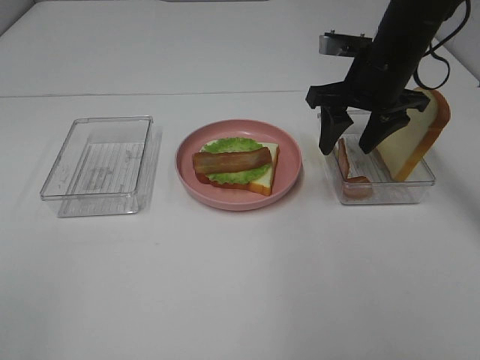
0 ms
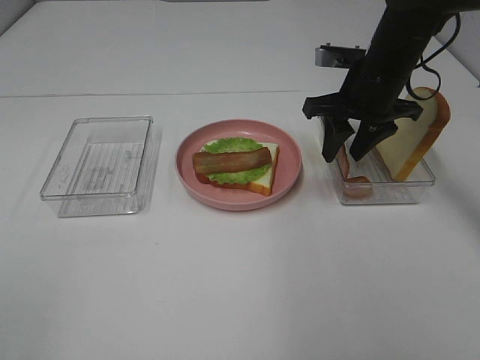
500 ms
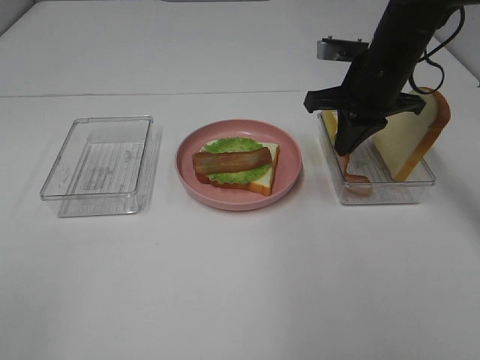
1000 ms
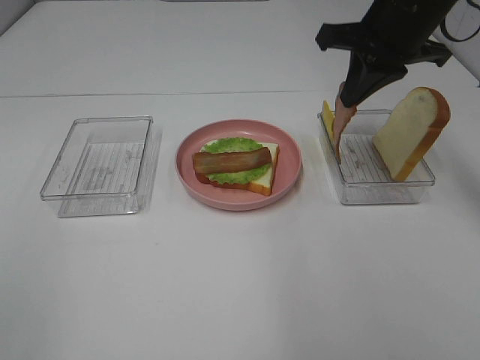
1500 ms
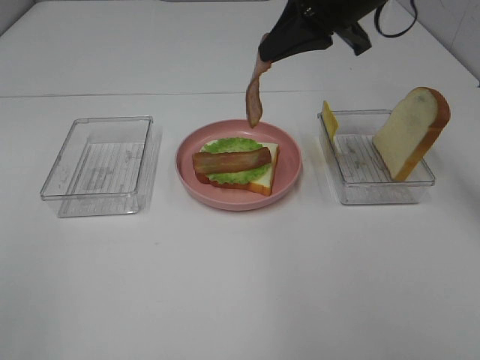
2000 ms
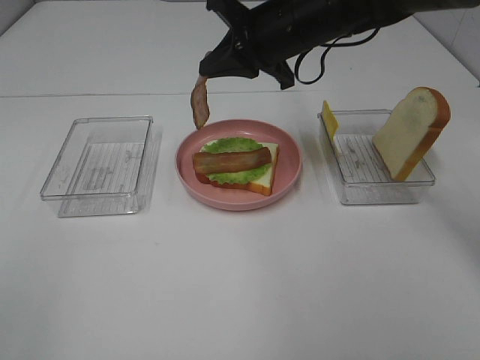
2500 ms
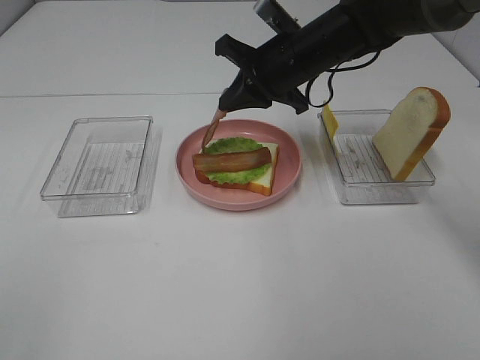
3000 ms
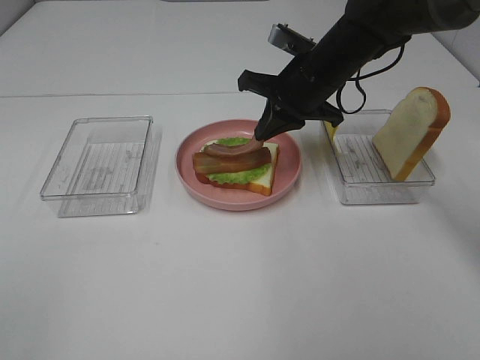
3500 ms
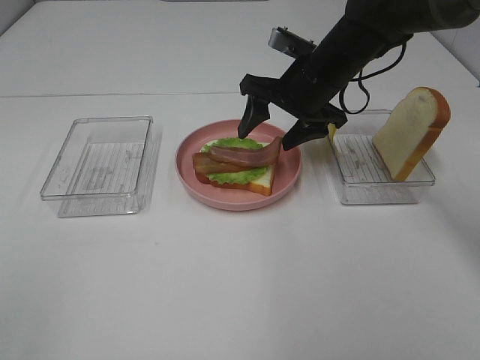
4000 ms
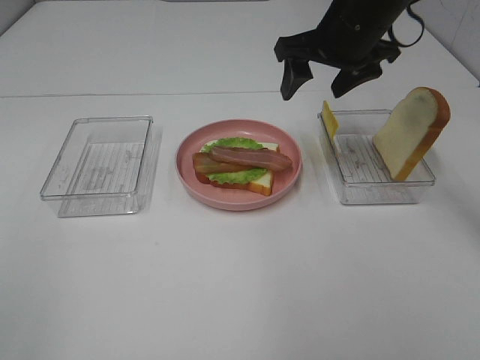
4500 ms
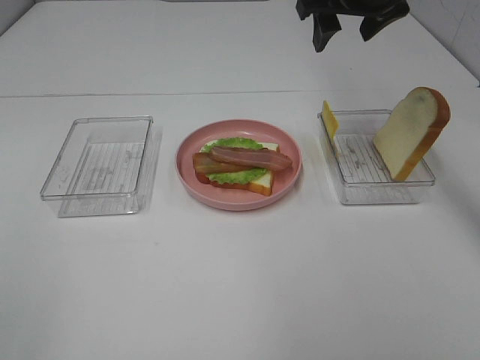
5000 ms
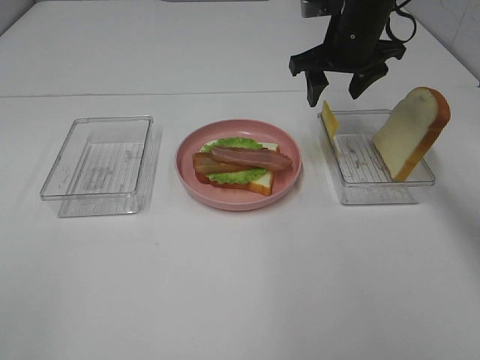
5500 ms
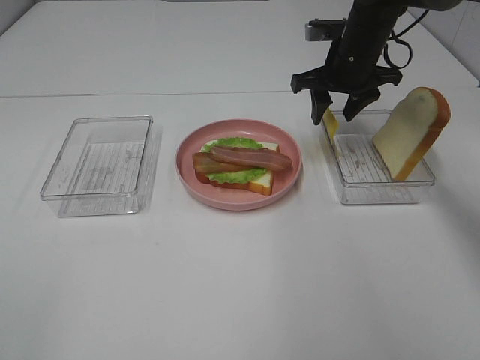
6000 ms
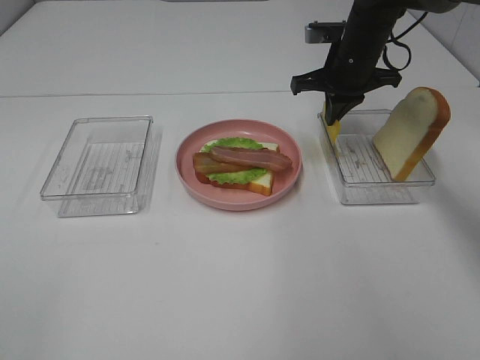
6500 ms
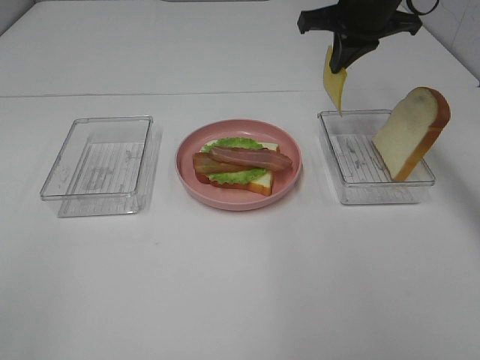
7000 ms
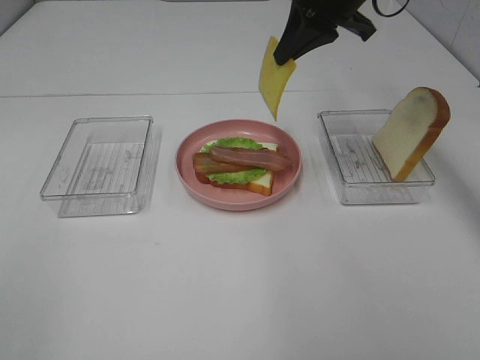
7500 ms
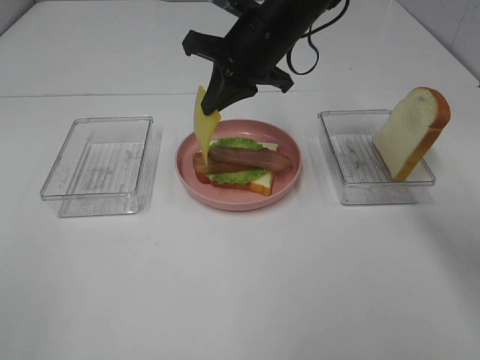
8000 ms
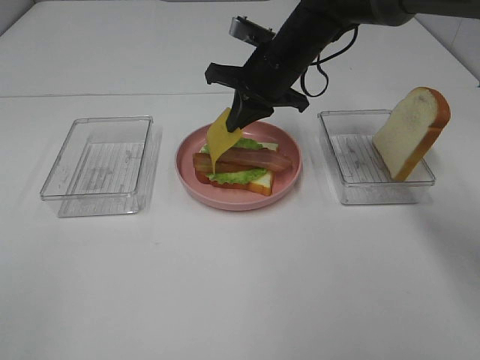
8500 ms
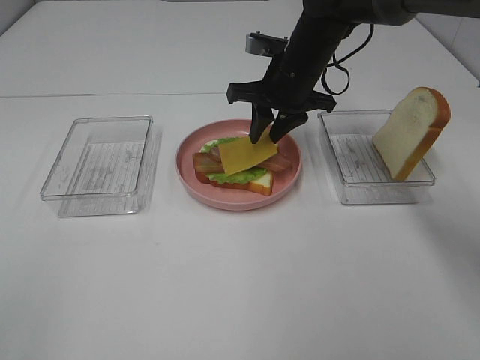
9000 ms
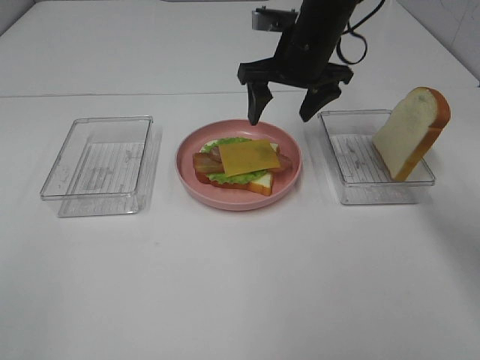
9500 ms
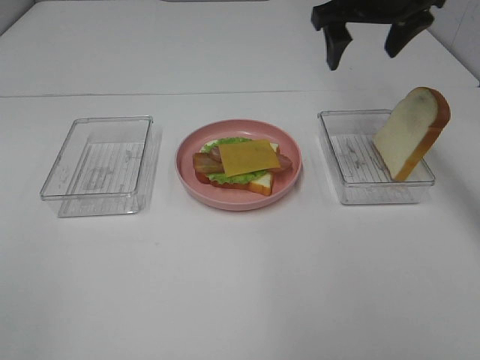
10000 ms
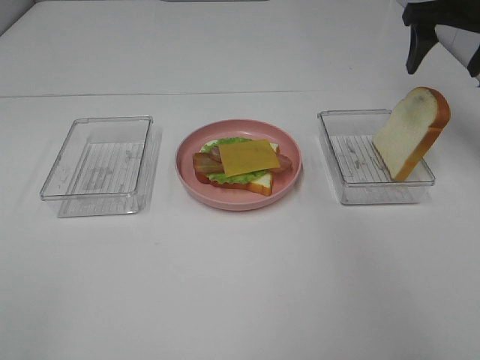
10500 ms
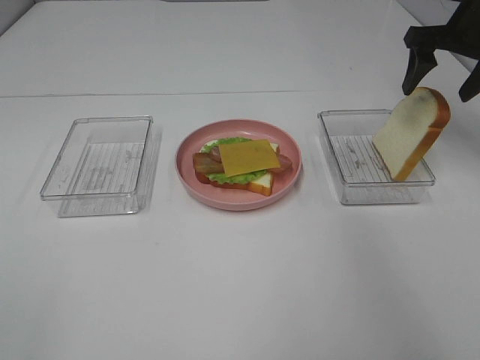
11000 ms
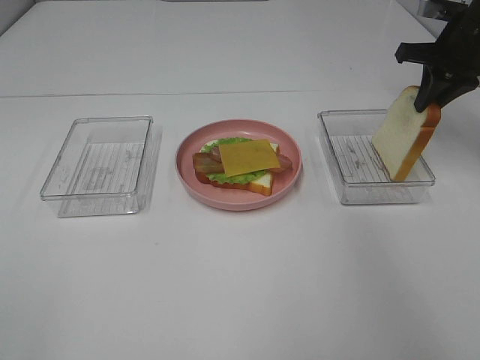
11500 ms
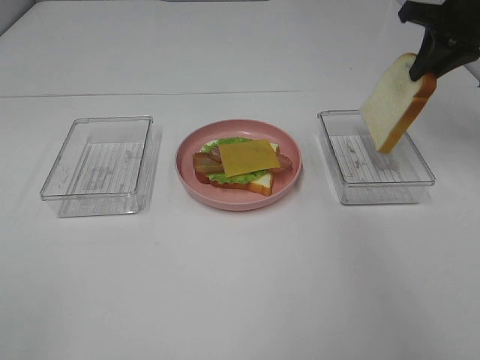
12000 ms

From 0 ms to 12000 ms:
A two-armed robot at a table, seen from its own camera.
Task of the whole recording: Make sandwiches.
Step, from 1500 ms to 4000 ms: Right hand:place bacon on bacon.
Step, from 4500 ms to 6500 ms: Right hand:grab the cheese slice.
Step, from 7000 ms to 9000 ms: Right hand:place the cheese slice on top of the bacon.
Step, from 9500 ms to 11000 ms: Right hand:grab the bread slice.
From 0 ms to 2000 ms: The right gripper goes approximately 10 cm upward, and closes.
From 2000 ms to 4000 ms: The right gripper is displaced downward by roughly 10 cm, and opens its fingers.
From 4000 ms to 6000 ms: The right gripper moves forward and to the right, about 10 cm, and reaches some 10 cm upward, then returns.
From 6000 ms to 8000 ms: The right gripper shifts about 15 cm to the left and backward, and closes its fingers.
From 8000 ms to 10000 ms: The right gripper heads to the right and upward, covering some 15 cm, and opens.
From 10000 ms to 12000 ms: The right gripper moves to the right, approximately 10 cm, and closes up.

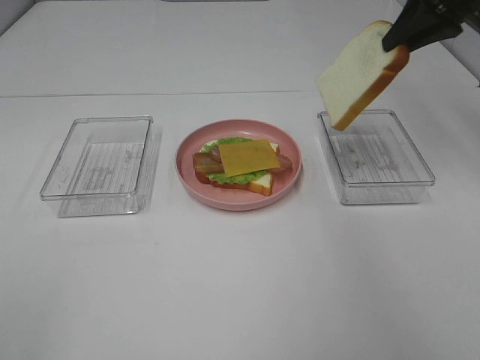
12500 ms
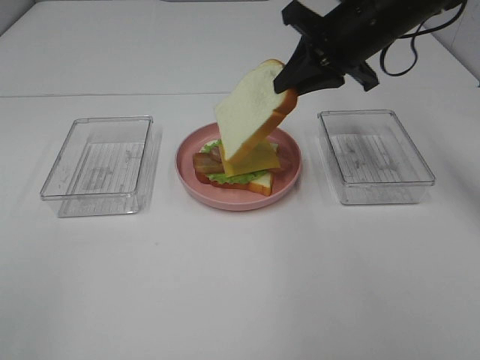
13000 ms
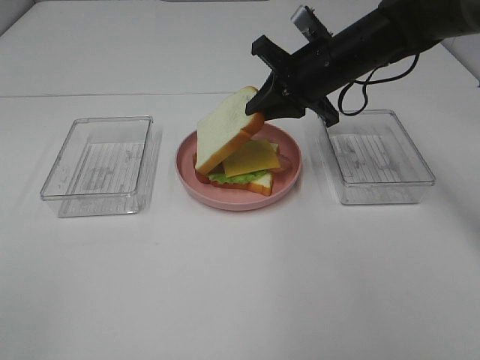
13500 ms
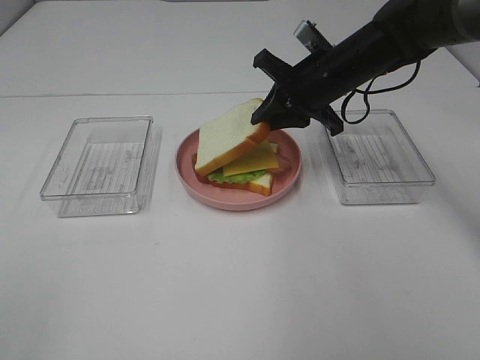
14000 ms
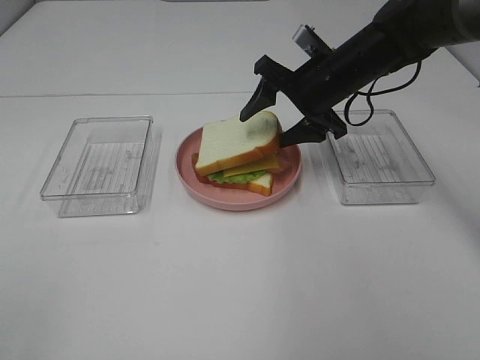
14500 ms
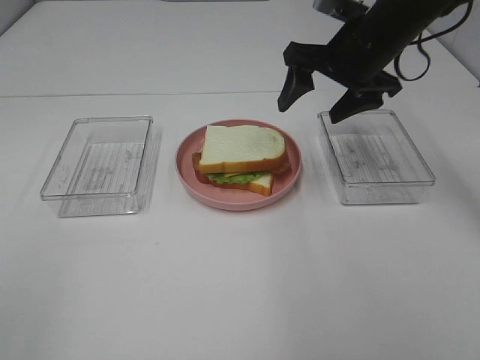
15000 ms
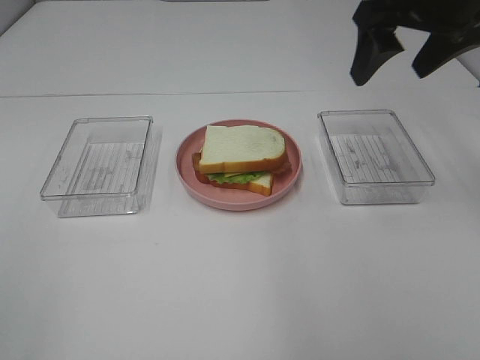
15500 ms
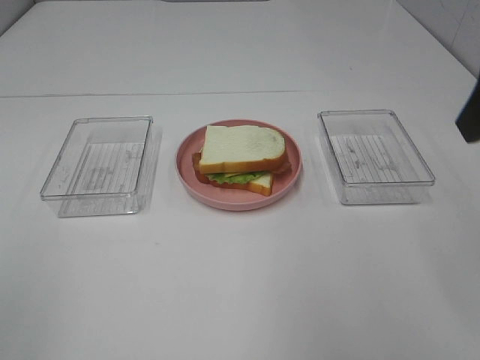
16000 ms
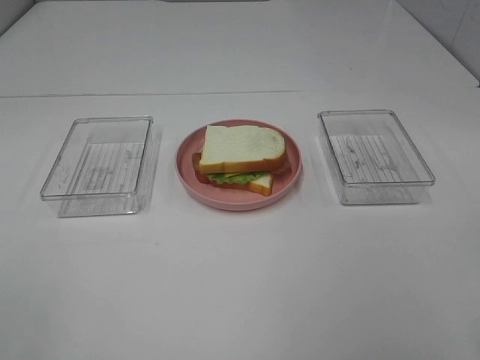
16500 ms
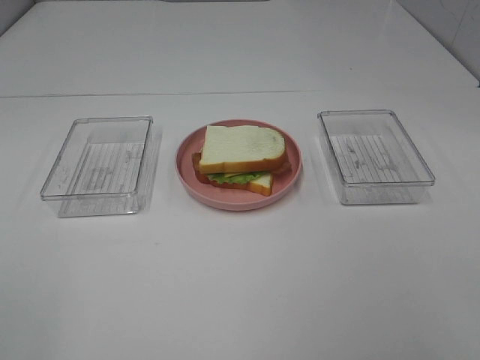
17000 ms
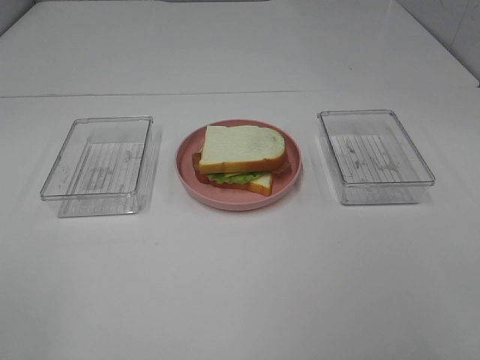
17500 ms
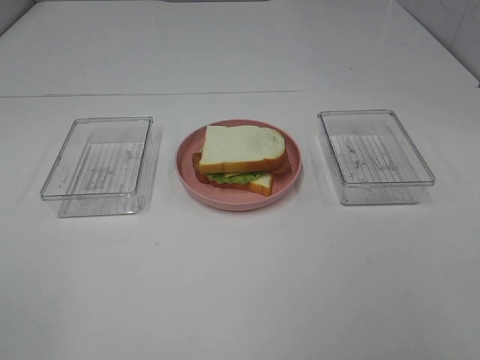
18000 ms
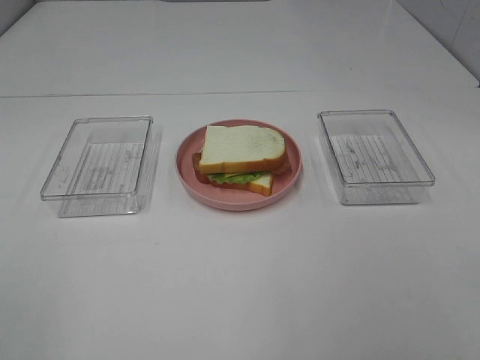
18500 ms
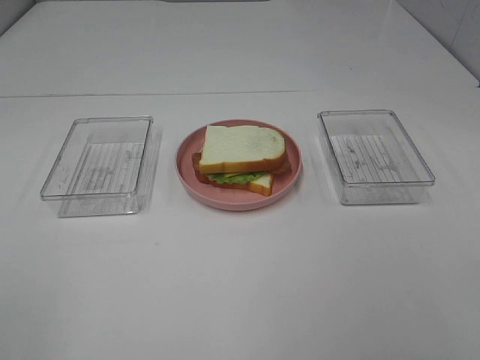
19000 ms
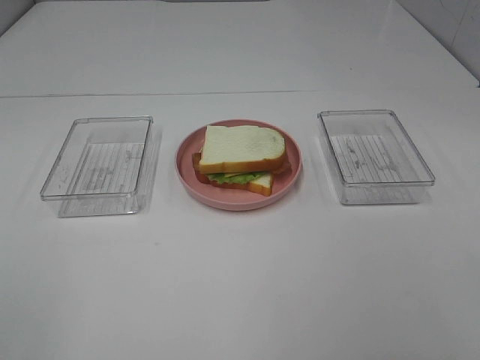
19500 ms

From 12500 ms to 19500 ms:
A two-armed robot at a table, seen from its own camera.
Task of the whole recording: Make sandwiches.
Step, from 12500 ms to 15000 ms: Right hand:place the bread slice on the cheese slice.
From 12500 ms to 14500 ms: The right gripper moves downward and to the left, some 20 cm, and opens.
From 14500 ms to 16000 ms: The right gripper shifts approximately 30 cm backward, upward and to the right.

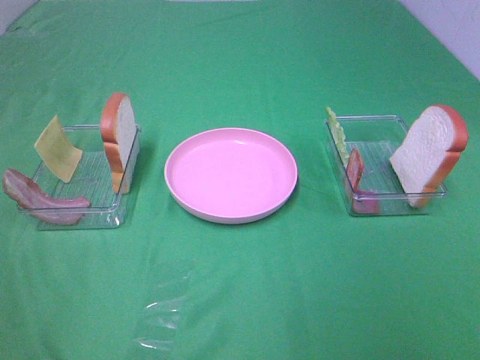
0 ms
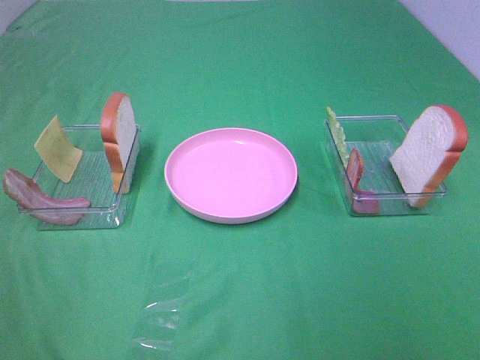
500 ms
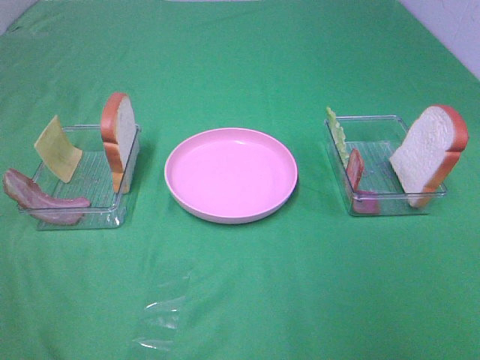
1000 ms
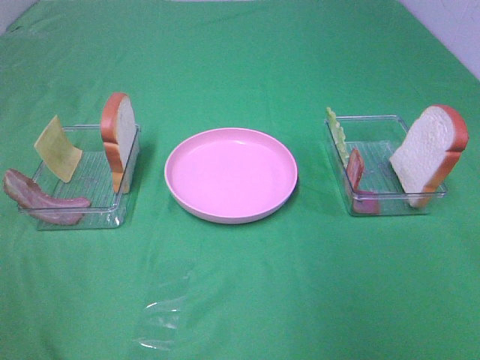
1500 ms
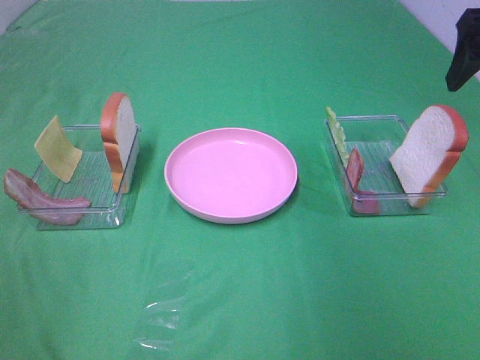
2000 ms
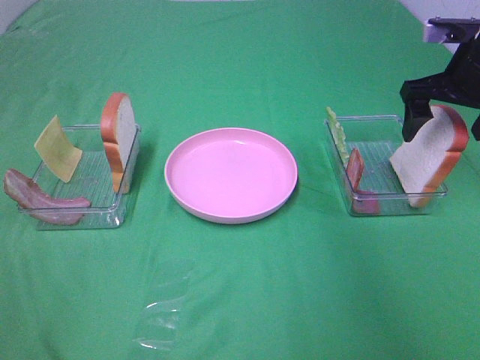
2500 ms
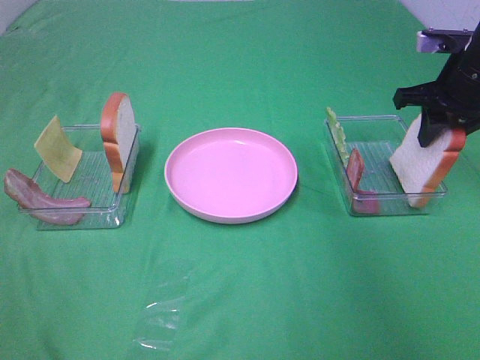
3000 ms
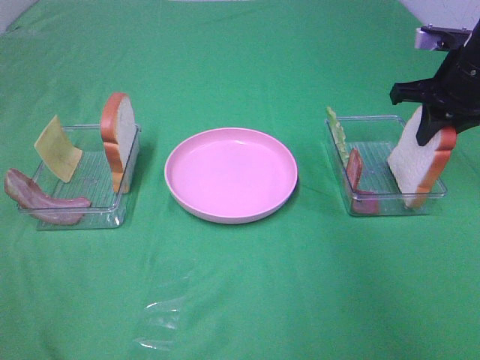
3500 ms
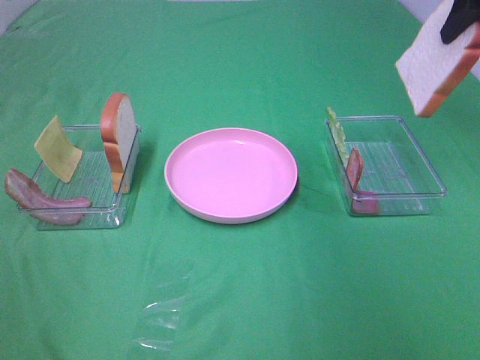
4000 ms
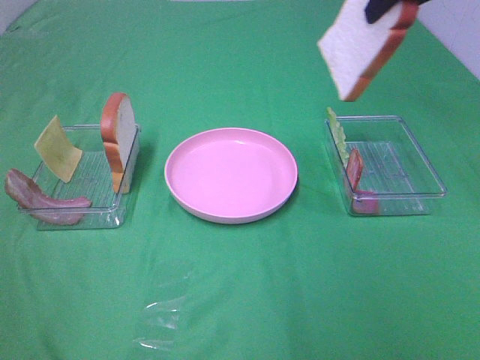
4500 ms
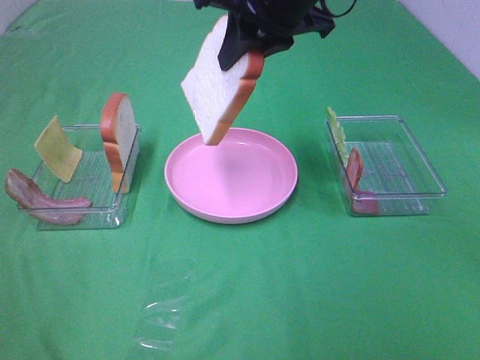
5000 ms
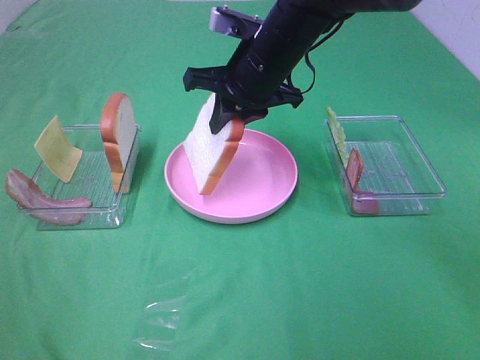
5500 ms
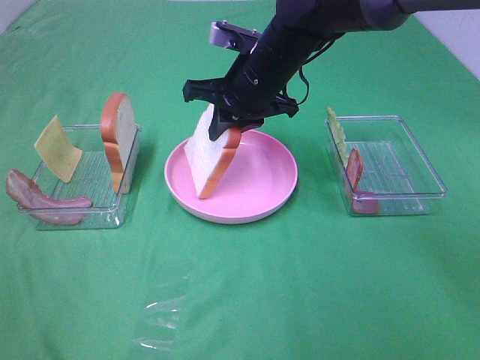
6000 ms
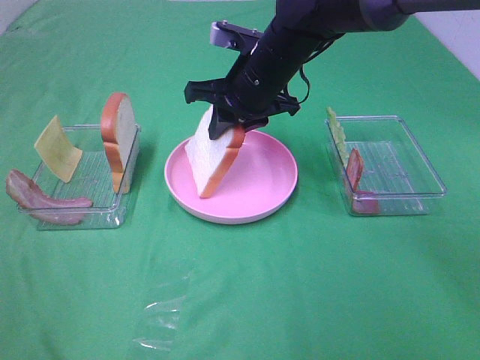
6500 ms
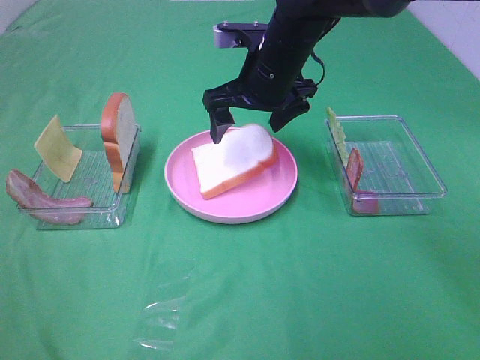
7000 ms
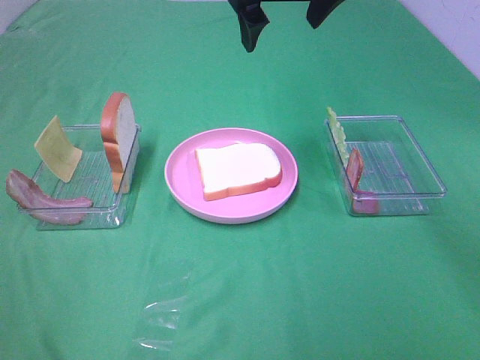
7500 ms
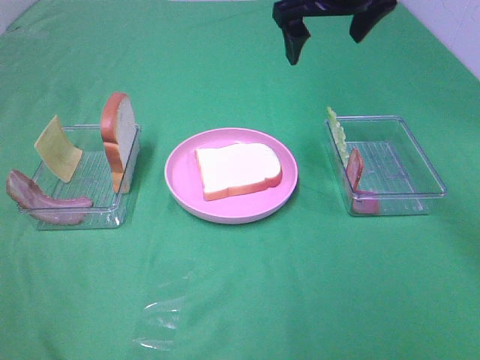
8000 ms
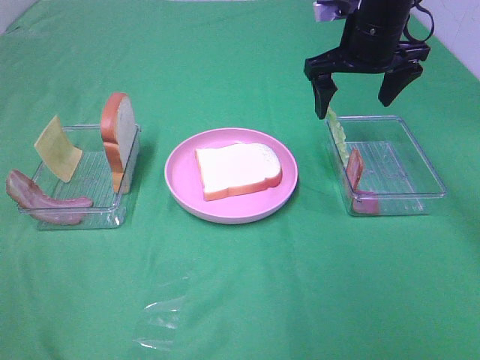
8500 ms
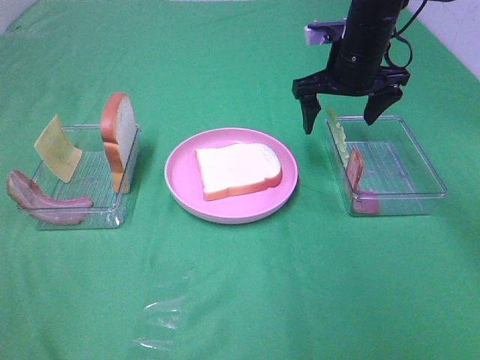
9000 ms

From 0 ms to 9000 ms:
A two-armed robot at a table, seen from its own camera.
Task of the whole recording: Make sandwiches.
Step, from 0 ms to 3000 ms: Right hand:grab the bread slice.
Step, from 3500 ms to 7000 ms: Right hand:place the bread slice on the plate.
From 0 ms to 2000 ms: The right gripper moves forward, roughly 30 cm.
From 2000 ms to 4500 ms: The right gripper shifts some 10 cm to the left, goes downward and returns, about 10 cm each way, and closes up.
From 4500 ms to 7000 ms: The right gripper heads downward and to the left, covering roughly 20 cm, and opens up.
From 7000 ms to 9000 ms: The right gripper is displaced to the right by about 10 cm, and moves about 15 cm upward and comes back.
